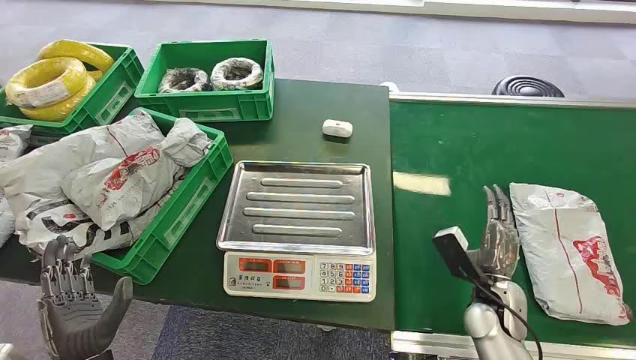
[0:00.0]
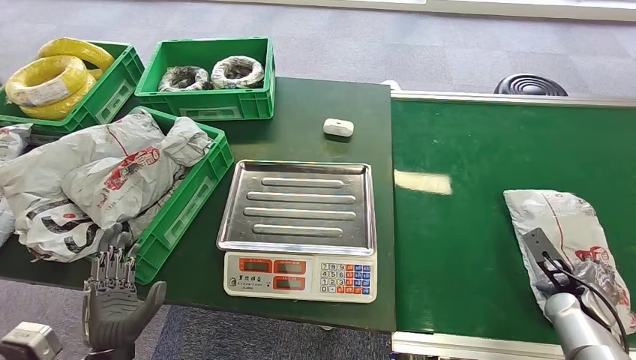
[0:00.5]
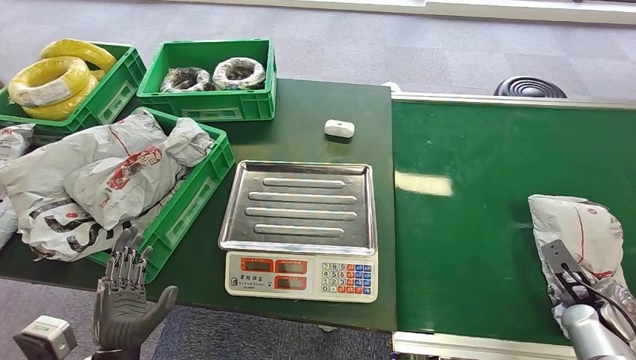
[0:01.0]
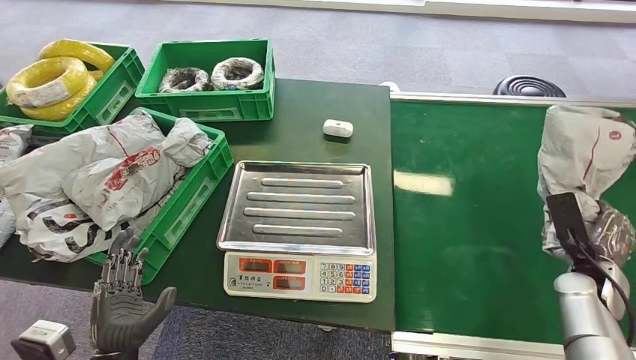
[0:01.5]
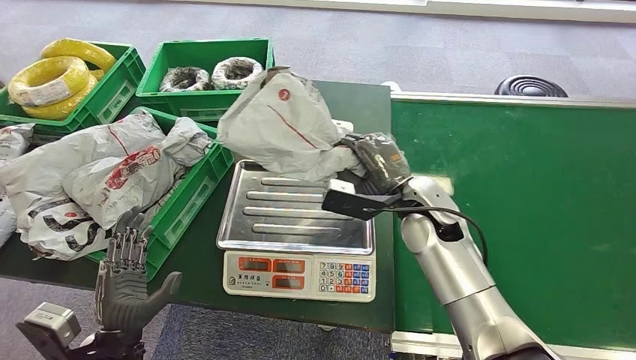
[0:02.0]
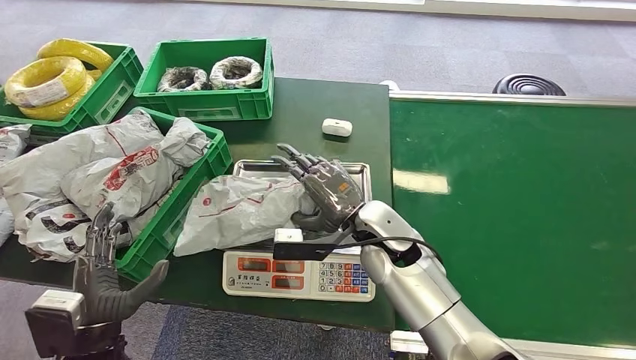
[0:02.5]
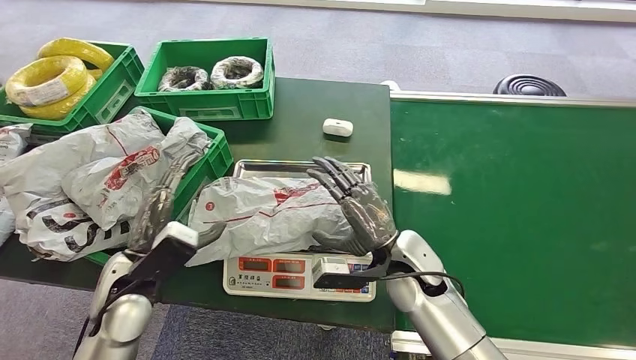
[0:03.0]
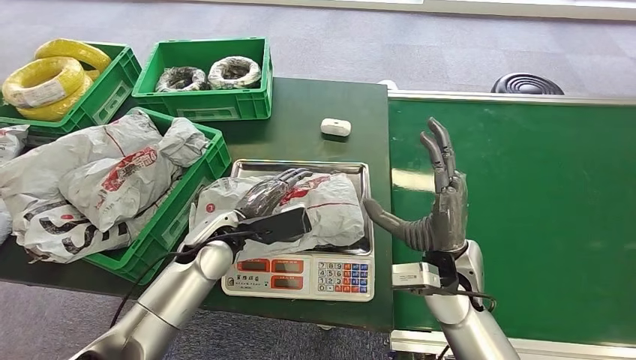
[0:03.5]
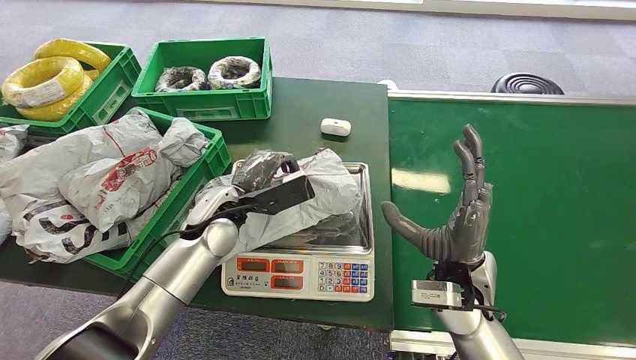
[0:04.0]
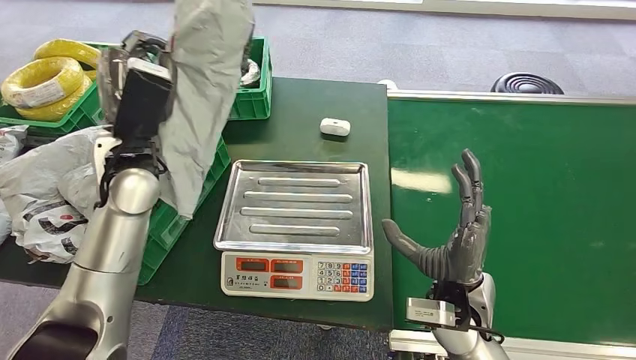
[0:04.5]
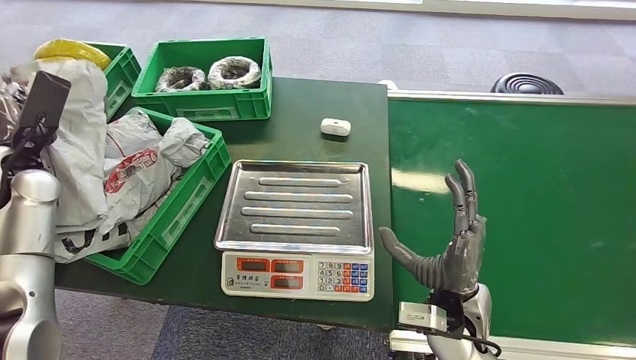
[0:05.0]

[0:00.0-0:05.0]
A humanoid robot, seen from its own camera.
Step, 0:00.0 to 0:01.5: Pick up the package from the conveyor belt.
Step, 0:02.0 to 0:03.0: Place the package onto the inbound machine.
Step, 0:04.0 to 0:04.5: Pick up the package from the inbound machine.

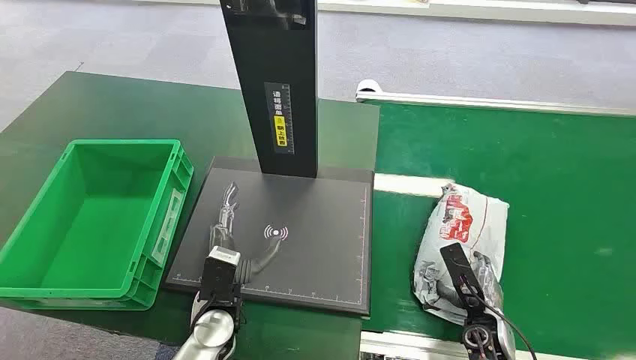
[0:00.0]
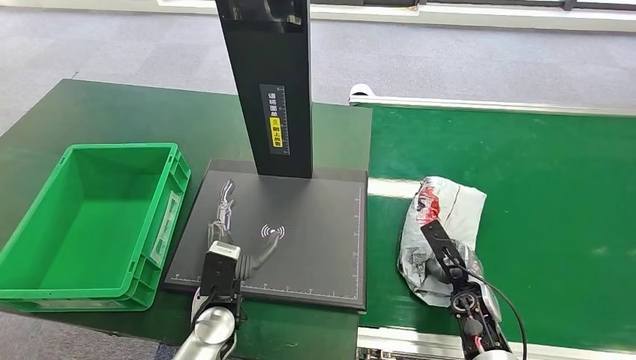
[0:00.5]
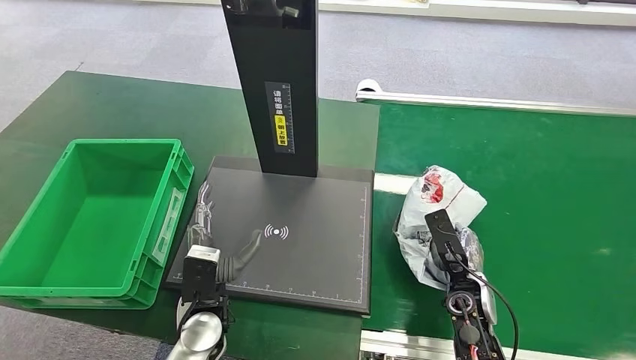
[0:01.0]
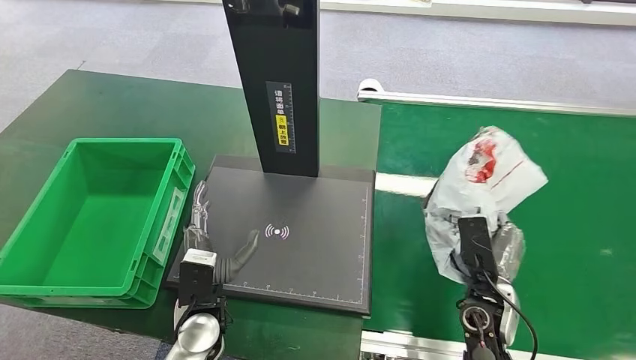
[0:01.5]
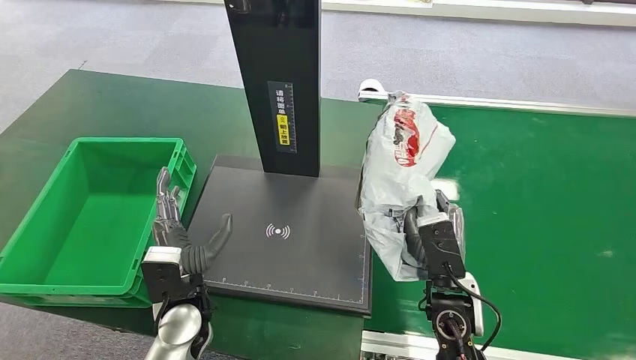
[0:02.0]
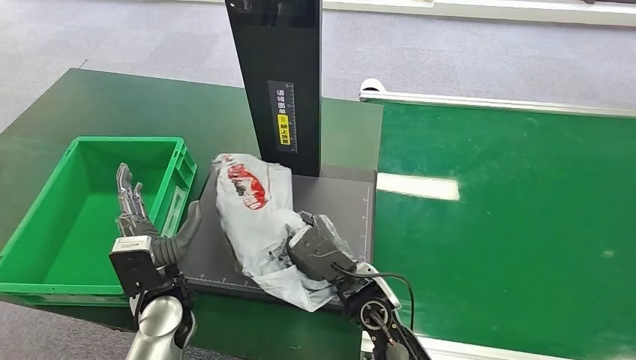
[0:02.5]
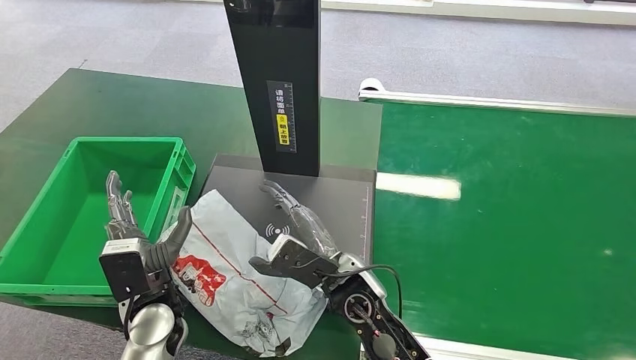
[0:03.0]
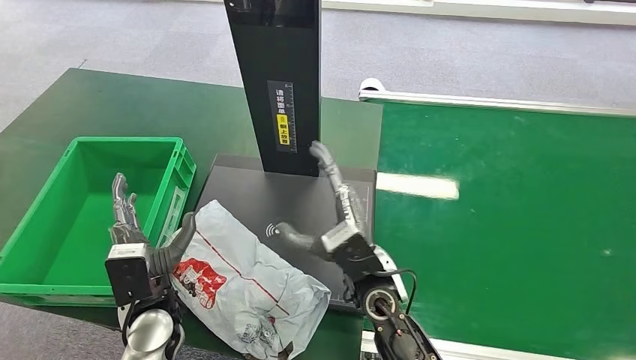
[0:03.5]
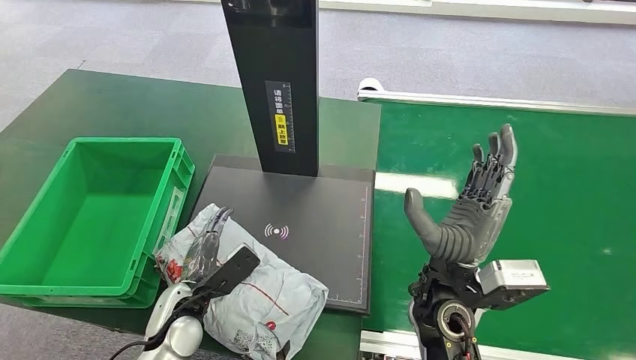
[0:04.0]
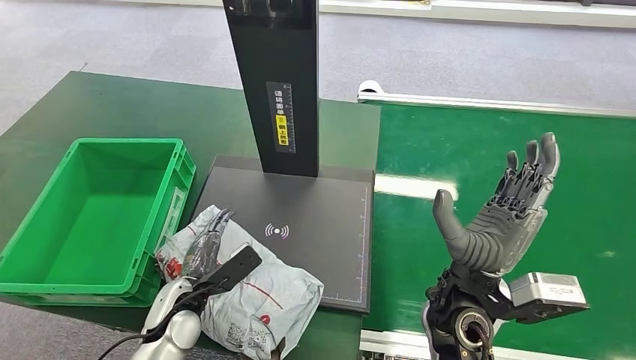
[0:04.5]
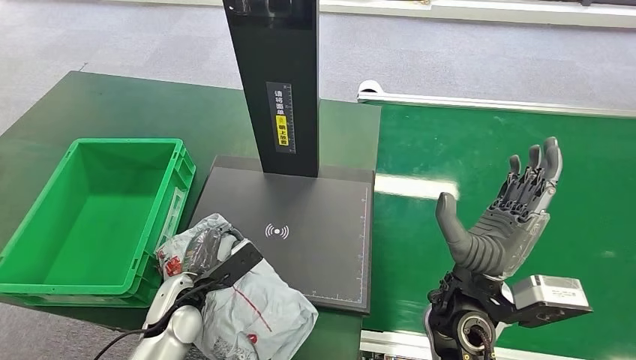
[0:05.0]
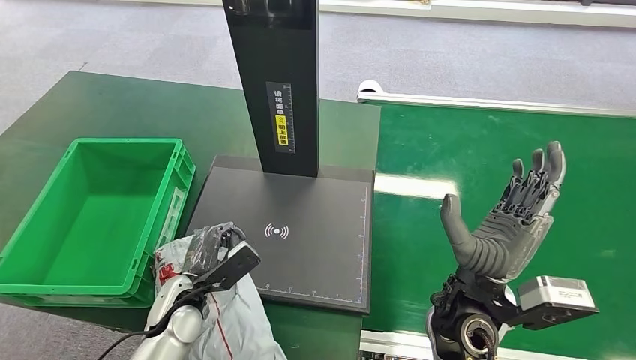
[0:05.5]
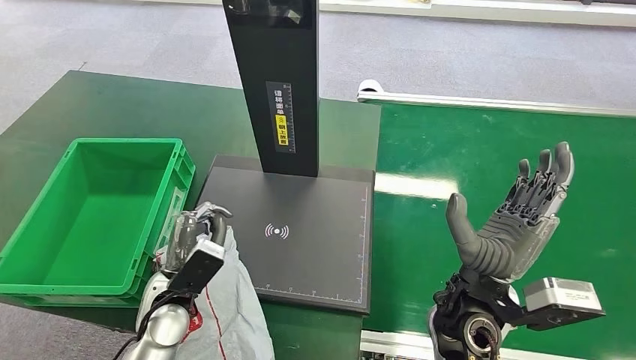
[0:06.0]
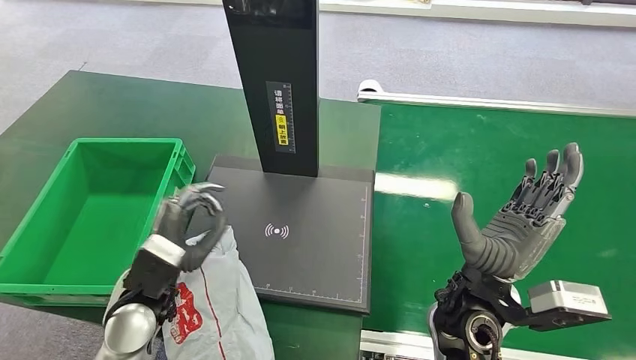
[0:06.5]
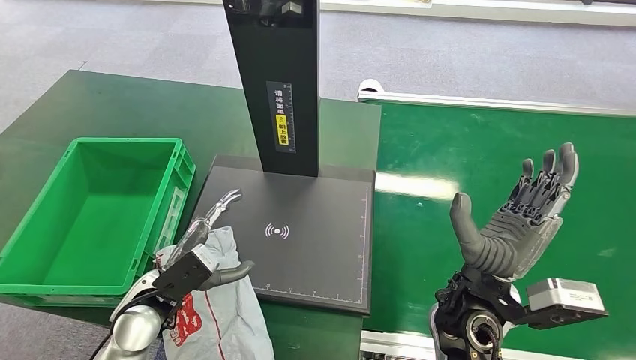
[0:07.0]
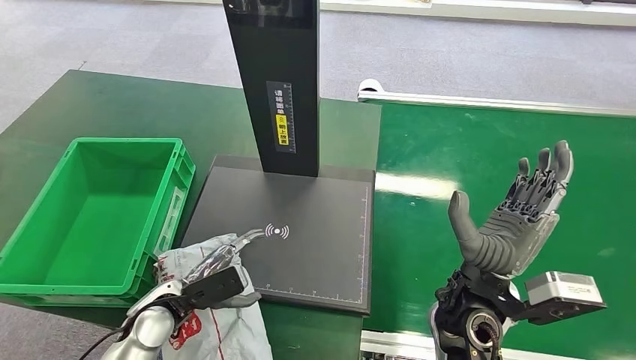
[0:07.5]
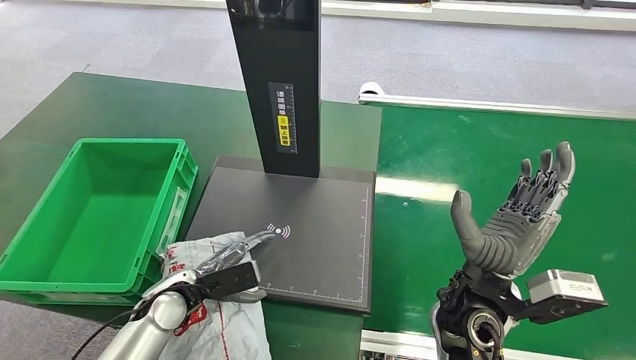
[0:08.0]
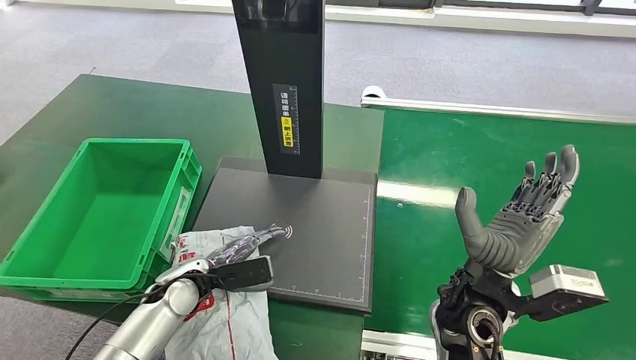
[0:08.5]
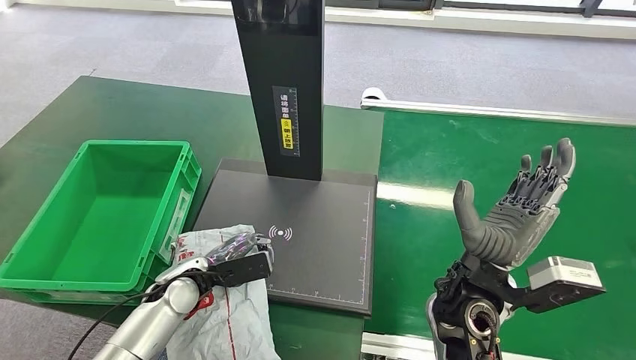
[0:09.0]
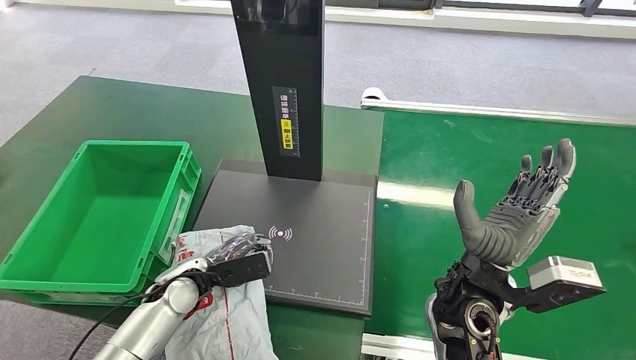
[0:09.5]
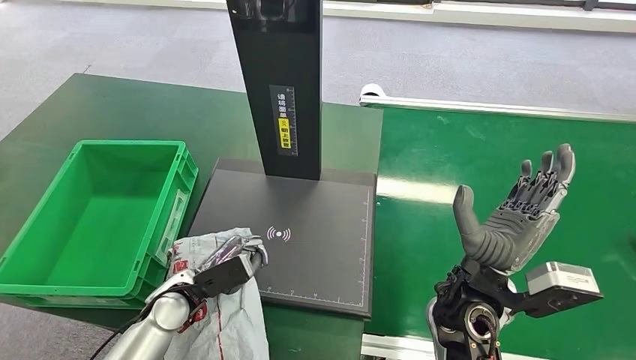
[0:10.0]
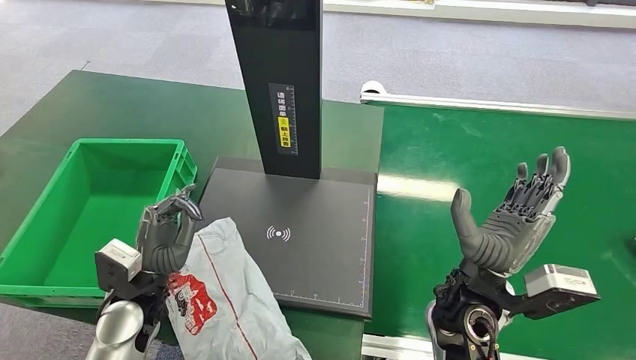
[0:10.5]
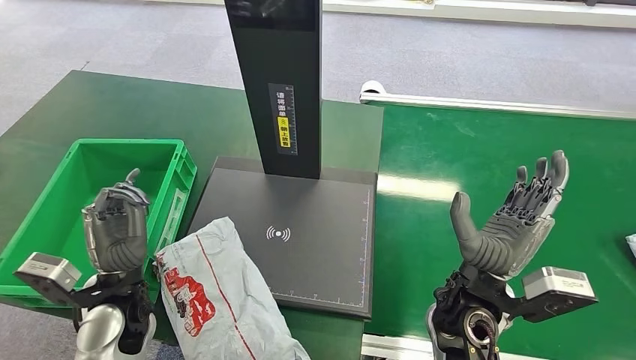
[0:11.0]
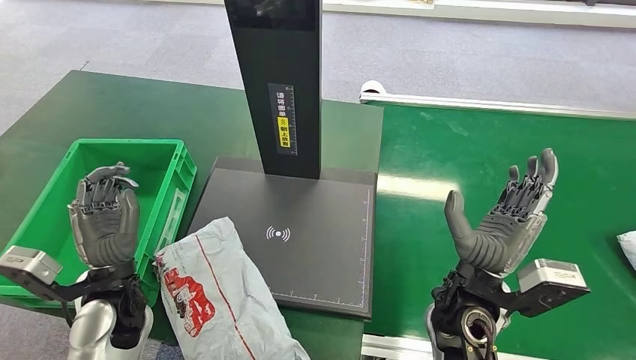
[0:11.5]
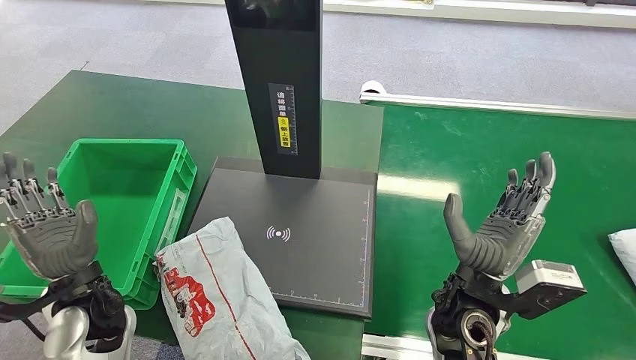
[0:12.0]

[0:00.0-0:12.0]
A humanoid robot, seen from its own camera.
Step, 0:00.0 to 0:01.5: Pick up the package from the conveyor belt.
Step, 0:02.0 to 0:04.5: Place the package onto the inbound machine.
0:06.0 to 0:08.0: The left hand changes place by approximately 5 cm.
0:08.0 to 0:10.0: The hands make only small movements.

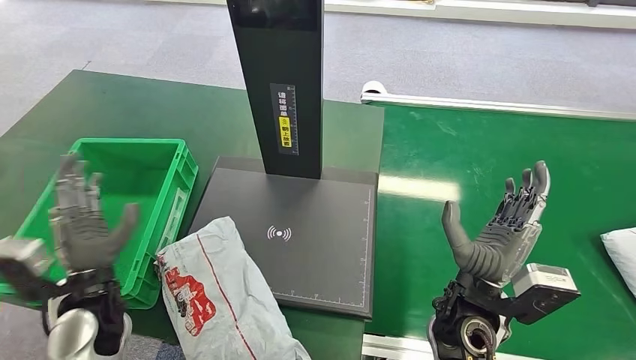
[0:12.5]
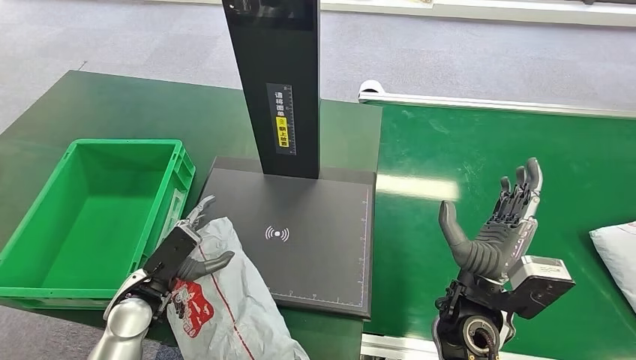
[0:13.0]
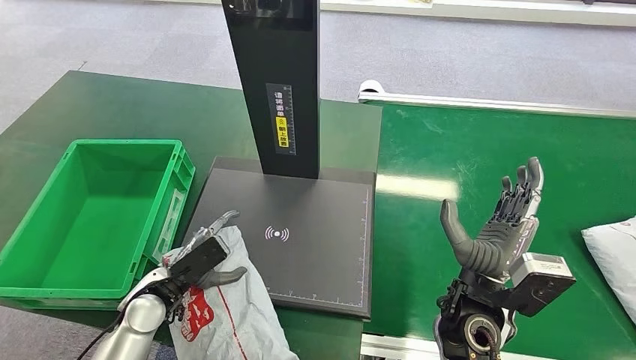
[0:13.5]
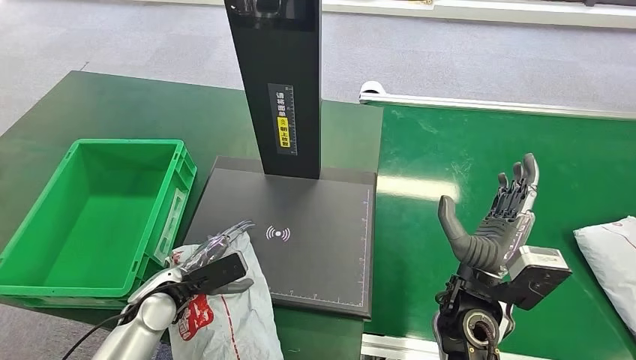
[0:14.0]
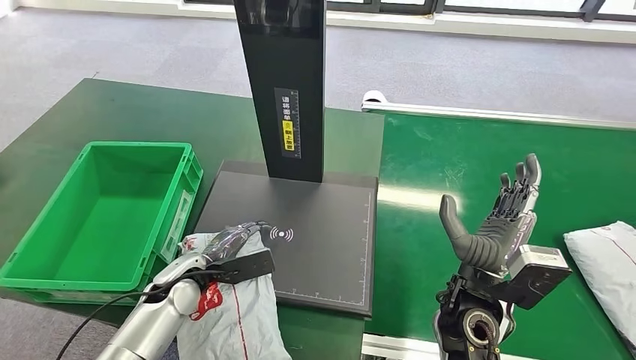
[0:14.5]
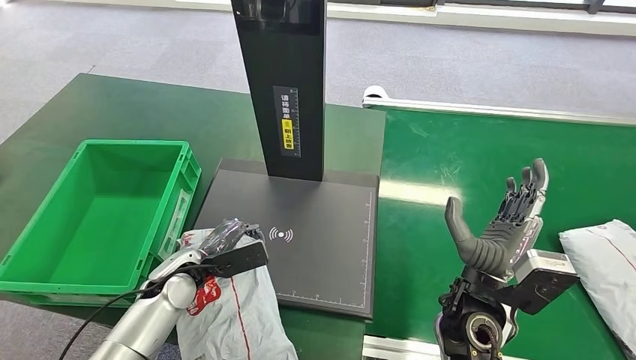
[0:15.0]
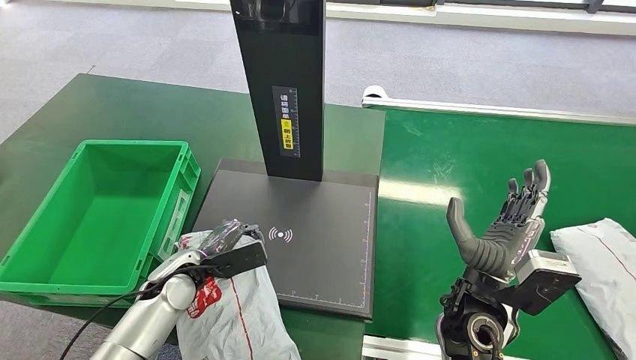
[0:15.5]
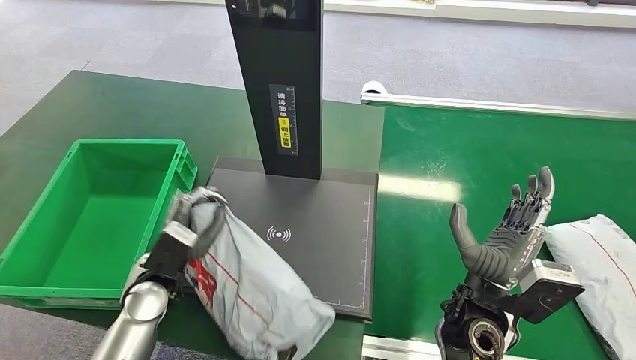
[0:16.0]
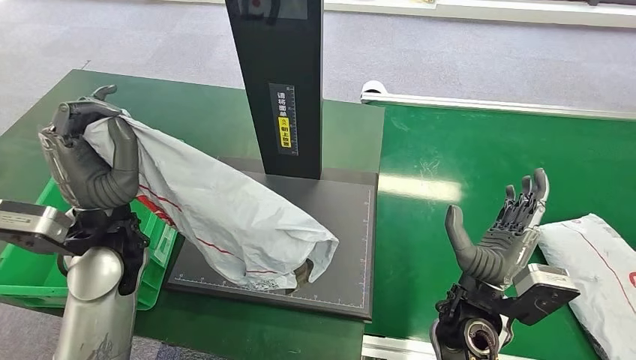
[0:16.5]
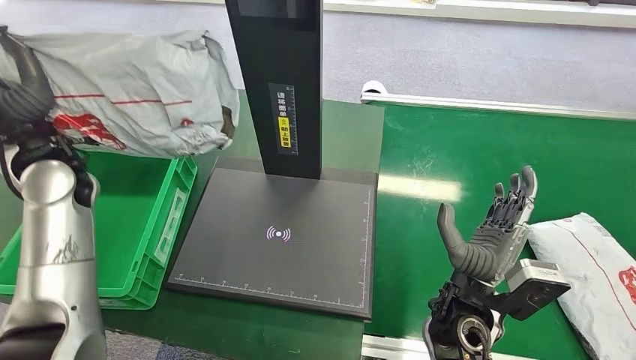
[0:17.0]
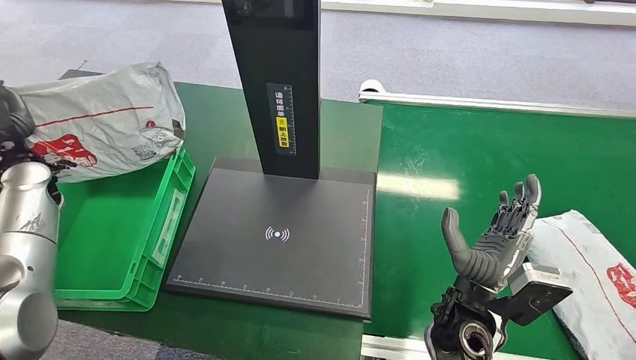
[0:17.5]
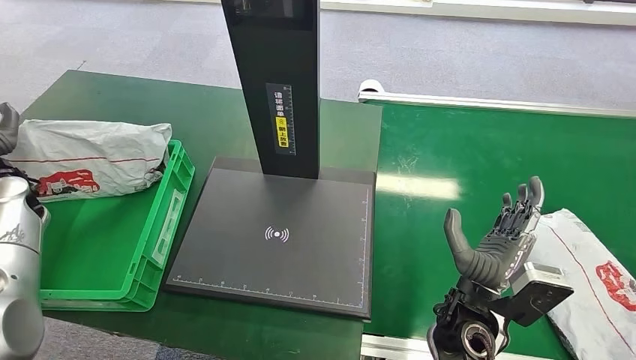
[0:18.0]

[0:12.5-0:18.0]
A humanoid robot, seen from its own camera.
Step, 0:13.5 to 0:17.0: Pick up the package from the inbound machine.
